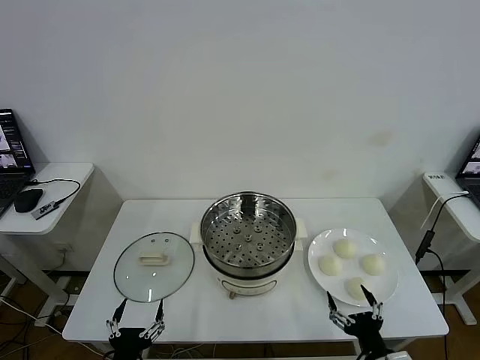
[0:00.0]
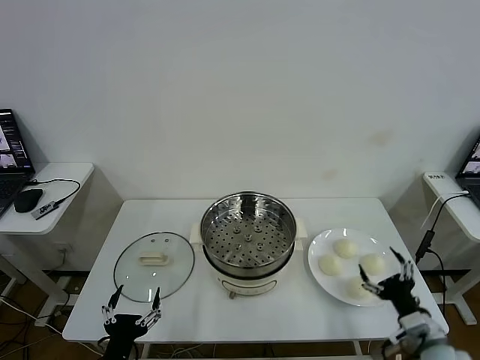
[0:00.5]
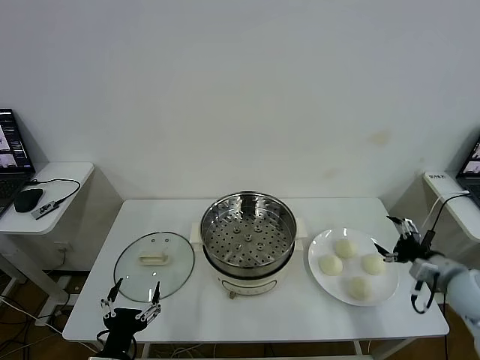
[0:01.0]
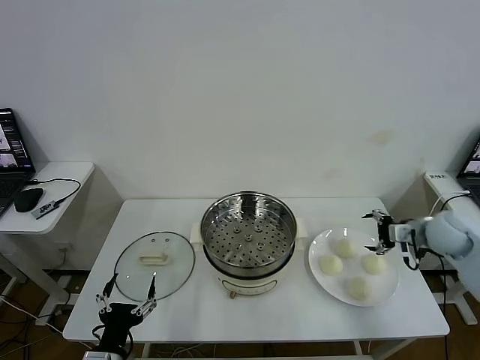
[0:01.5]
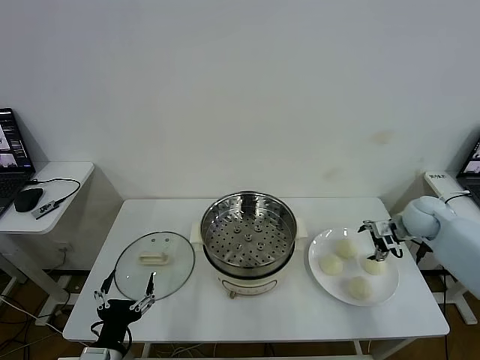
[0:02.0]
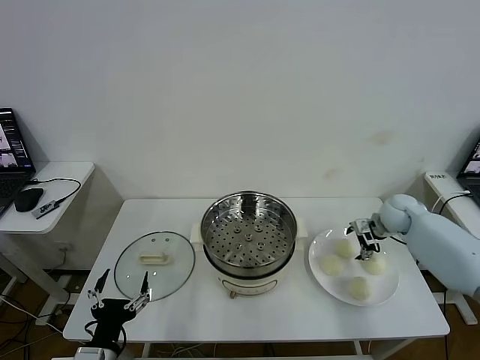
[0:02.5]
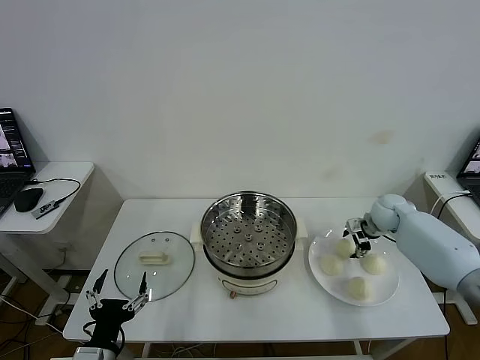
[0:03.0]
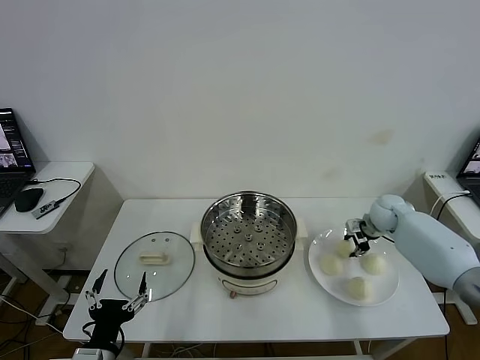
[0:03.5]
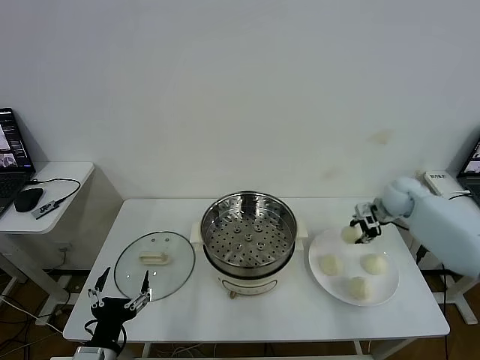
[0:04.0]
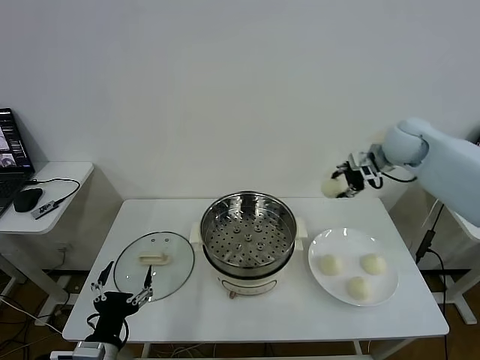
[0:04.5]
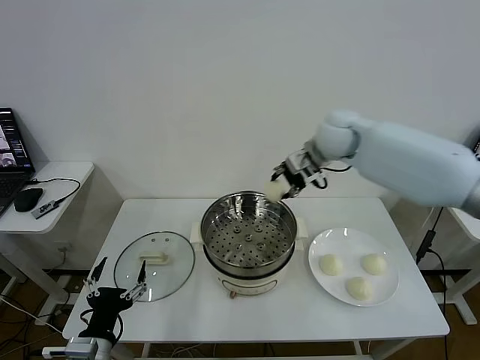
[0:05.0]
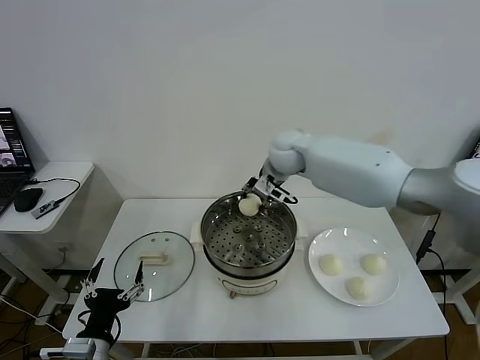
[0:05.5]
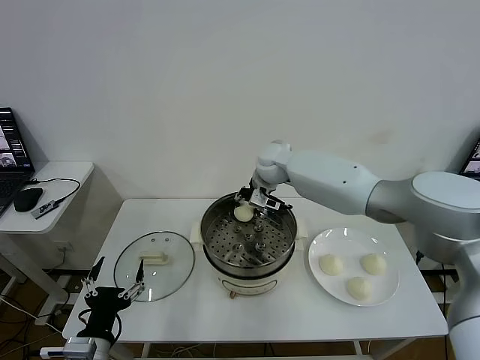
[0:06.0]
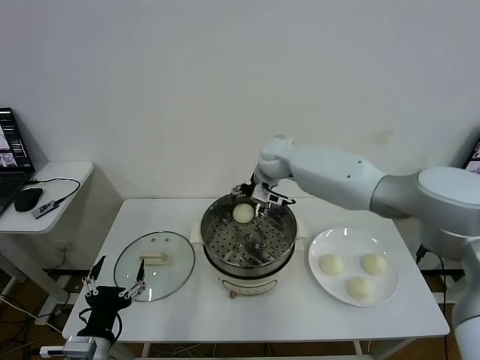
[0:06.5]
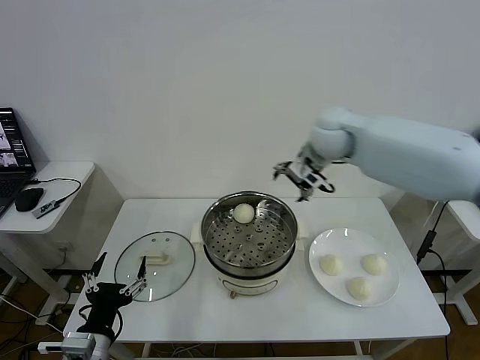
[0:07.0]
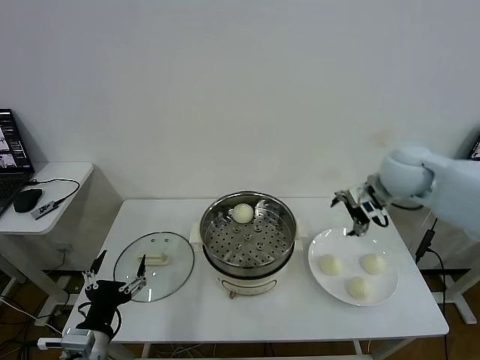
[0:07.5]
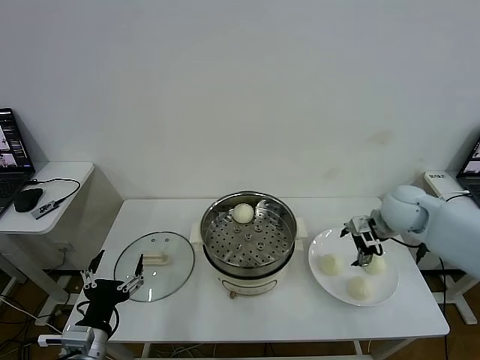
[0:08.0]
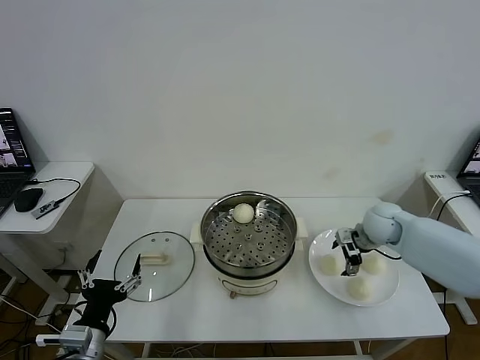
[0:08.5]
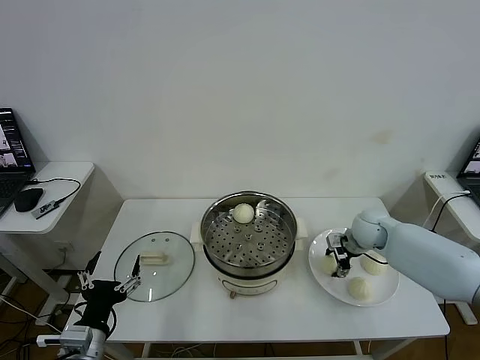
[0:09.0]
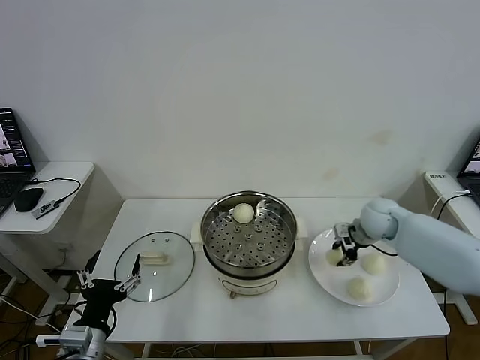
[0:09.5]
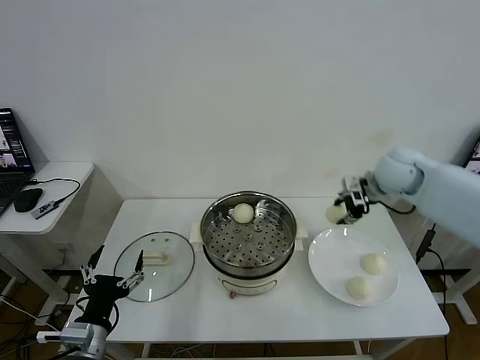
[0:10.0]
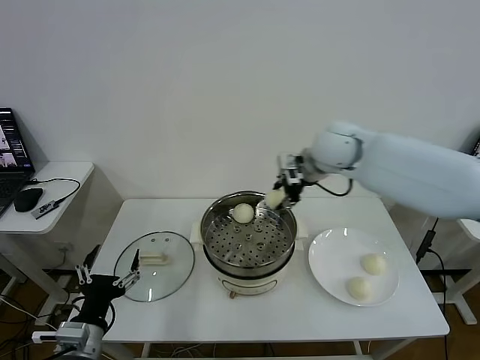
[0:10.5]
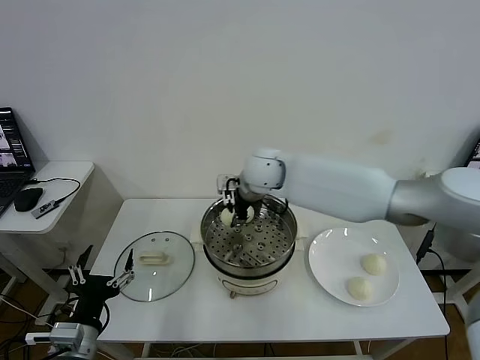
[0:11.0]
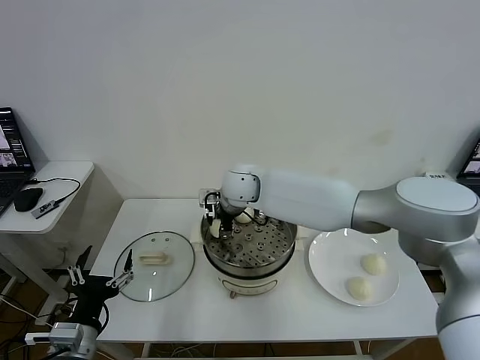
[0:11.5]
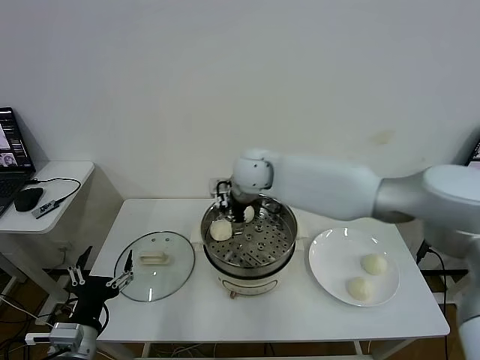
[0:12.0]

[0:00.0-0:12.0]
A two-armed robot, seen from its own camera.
Task of the whole recording: take steamed baozi put them in steamer then cover it.
Step, 0:00.0 to 0:03.0: Grasp the baozi in the plate with right gripper.
Step, 0:03.5 to 0:06.0: Place the baozi on the steamer with right gripper.
Step, 0:06.5 to 0:09.0: Grasp the baozi in the plate with right gripper.
Step, 0:09.5 to 0:11.5: Place the baozi on the steamer with right gripper.
0:02.0 to 0:04.0: The right gripper is displaced forward by approximately 5 cm, and closes.
0:04.0 to 0:06.0: The right gripper moves to the left, approximately 35 cm.
0:06.0 to 0:08.0: The right gripper moves to the right and backward, some 30 cm, and opens up.
0:08.0 to 0:10.0: The right gripper shifts some 10 cm upward, and closes its fingers.
0:10.0 to 0:12.0: The right gripper travels to the left by roughly 30 cm, and opens its fingers.

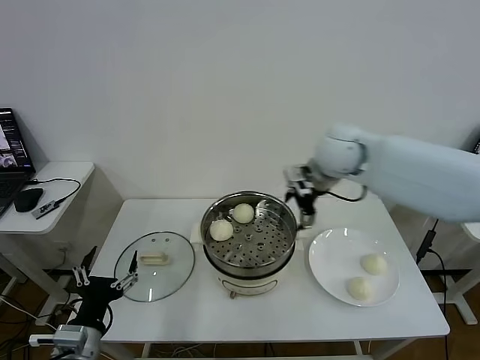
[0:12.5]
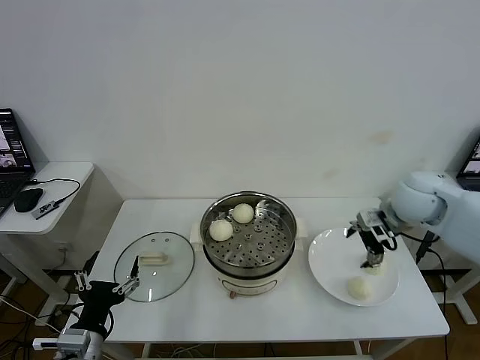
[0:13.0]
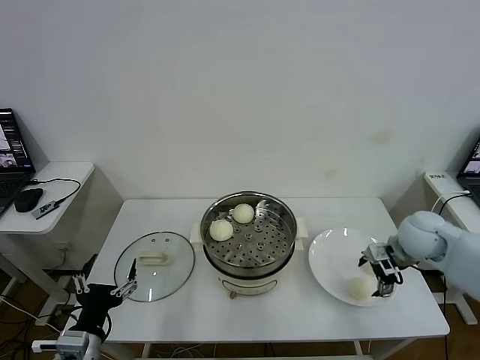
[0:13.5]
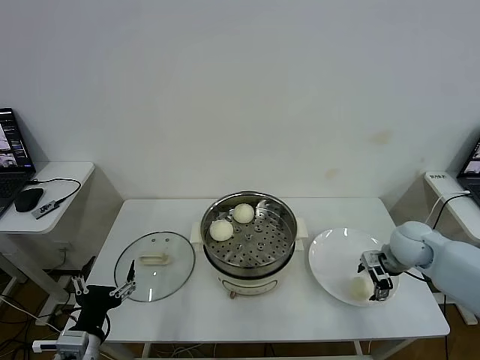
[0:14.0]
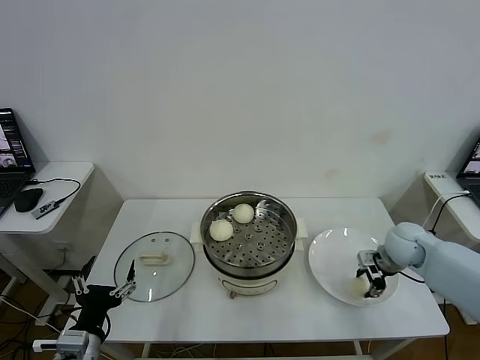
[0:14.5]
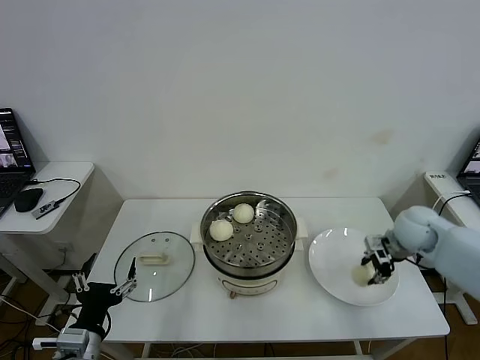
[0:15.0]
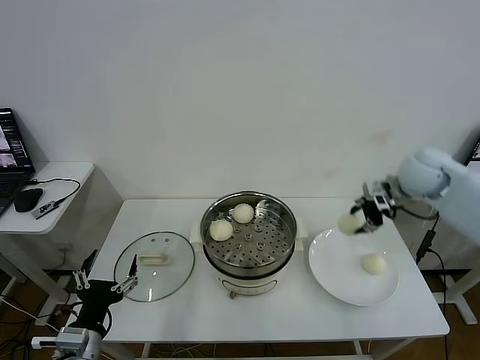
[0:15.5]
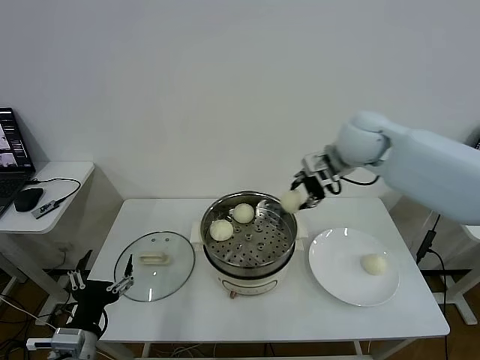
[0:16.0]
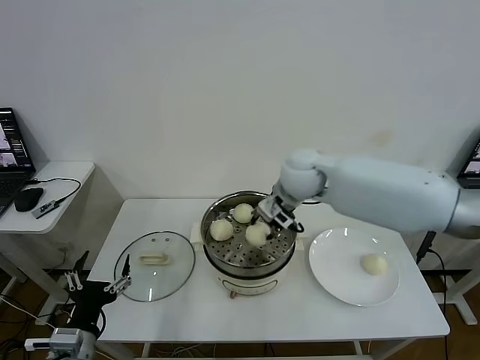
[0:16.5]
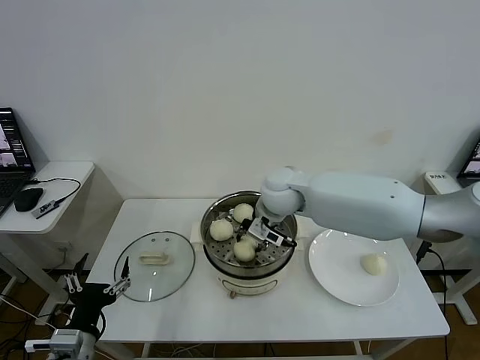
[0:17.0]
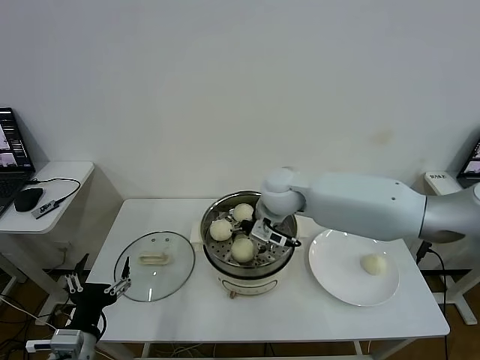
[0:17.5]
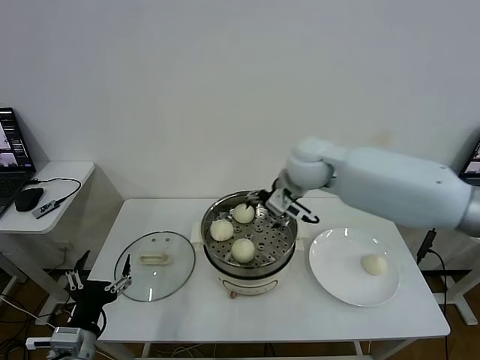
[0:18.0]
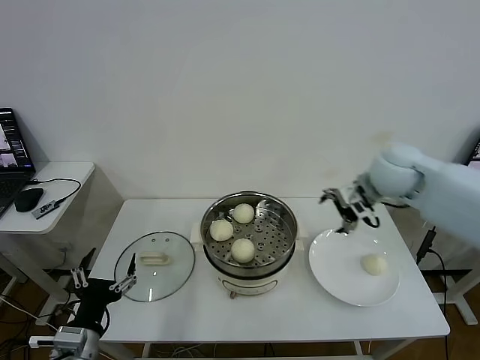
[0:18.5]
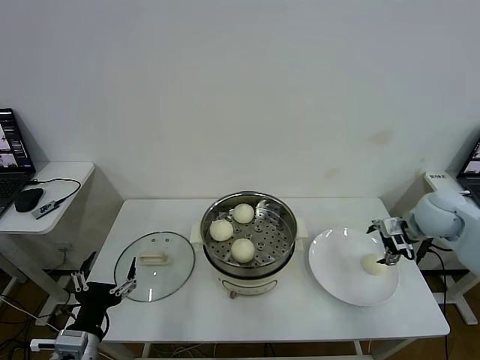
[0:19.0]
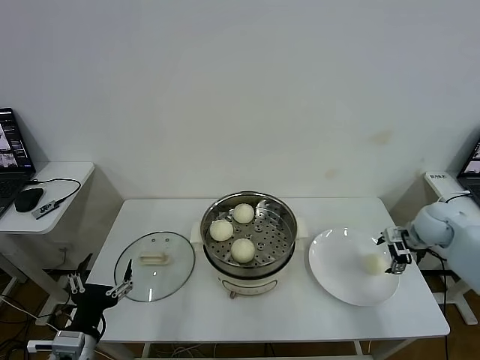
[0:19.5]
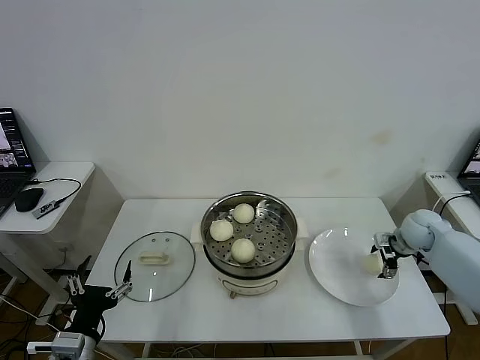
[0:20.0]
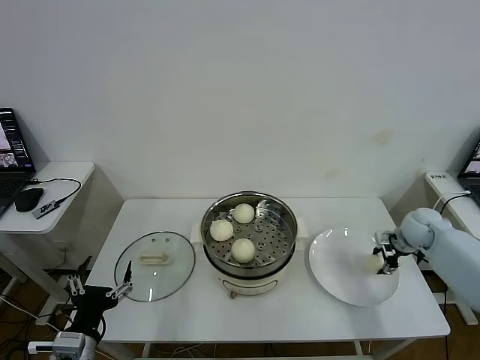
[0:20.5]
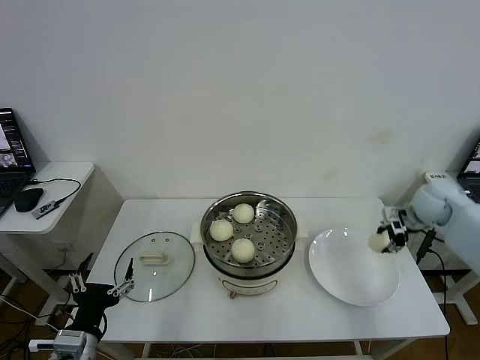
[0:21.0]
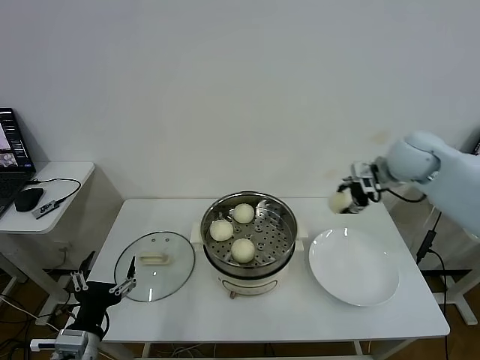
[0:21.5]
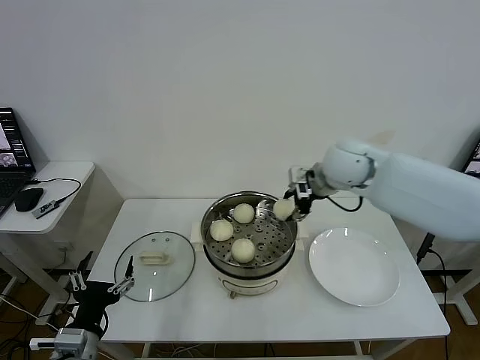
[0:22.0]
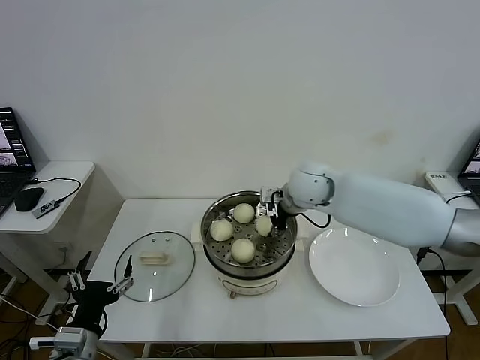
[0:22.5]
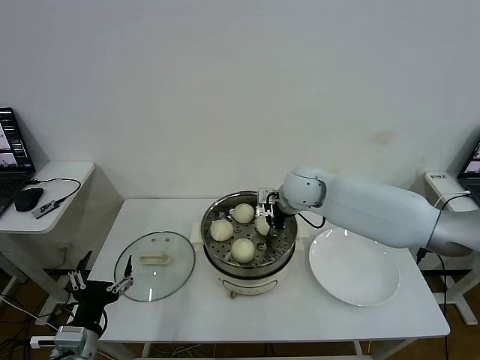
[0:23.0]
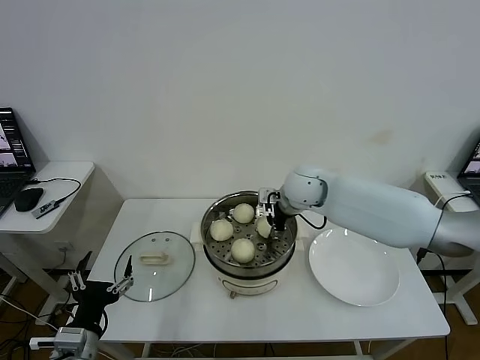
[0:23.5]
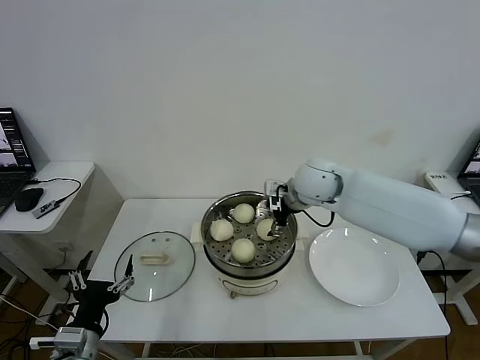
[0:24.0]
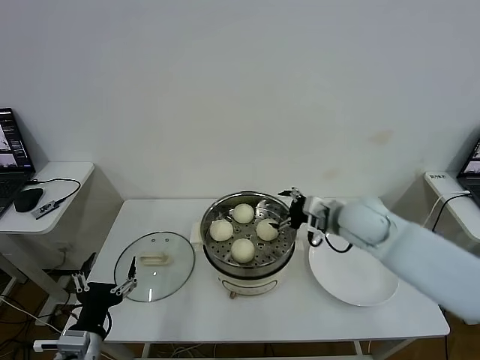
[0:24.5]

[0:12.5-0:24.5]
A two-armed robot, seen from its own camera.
Task of the whole recording: take steamed baozi put them in steamer then cover it.
Step, 0:12.5 to 0:14.5: Grasp the baozi in the plate with right gripper.
Step, 0:15.0 to 0:17.5: Place the baozi on the steamer with right gripper.
Step, 0:18.0 to 0:20.5: Grasp the baozi in the plate with right gripper.
Step, 0:21.0 to 0:23.5: Place the baozi on the steamer with right gripper.
0:12.5 to 0:14.5: The right gripper moves downward and to the right, some 30 cm, and closes its fingers.
0:14.5 to 0:16.5: The right gripper is displaced to the left and upward by about 30 cm.
0:16.5 to 0:18.5: The right gripper goes roughly 20 cm to the right, and opens its fingers.
0:18.5 to 0:20.5: The right gripper moves downward and to the right, about 25 cm, and closes its fingers.
0:20.5 to 0:22.5: The right gripper heads to the left and upward, covering roughly 35 cm.
0:22.5 to 0:24.5: The right gripper goes some 10 cm to the right and backward, and opens up.

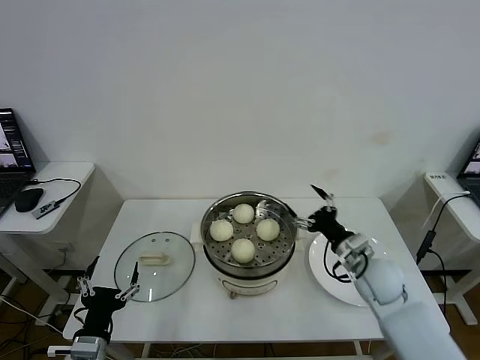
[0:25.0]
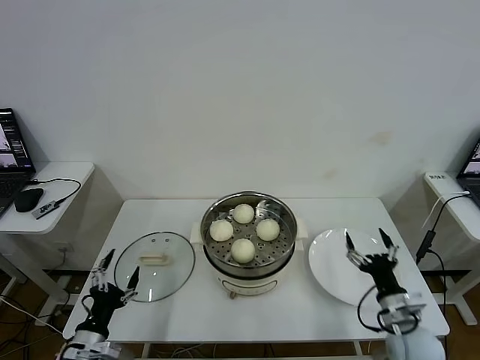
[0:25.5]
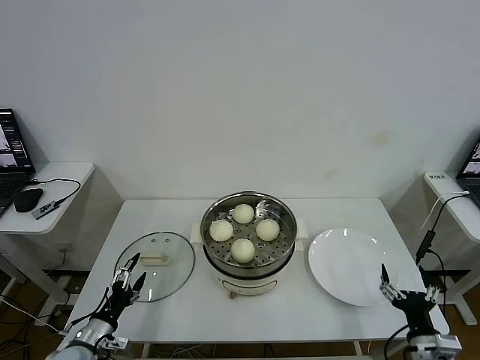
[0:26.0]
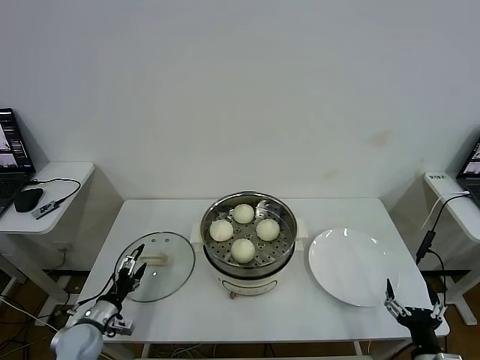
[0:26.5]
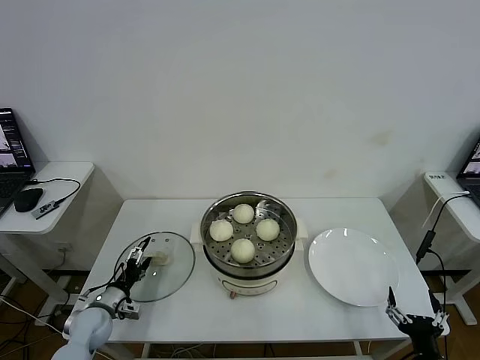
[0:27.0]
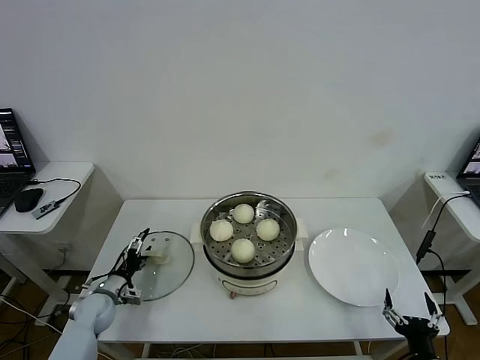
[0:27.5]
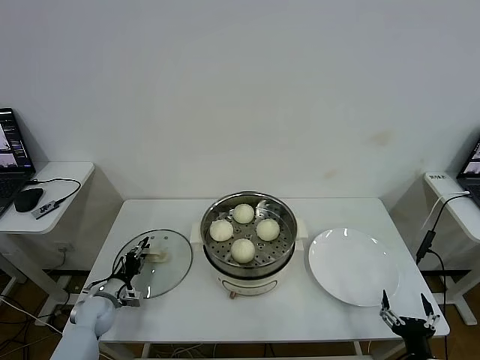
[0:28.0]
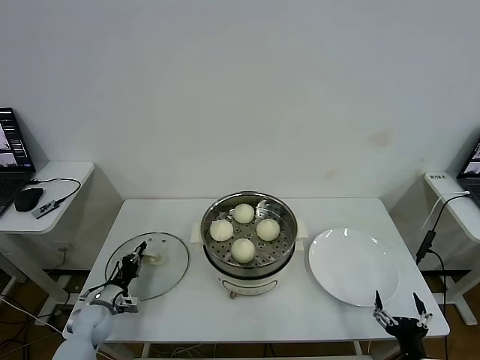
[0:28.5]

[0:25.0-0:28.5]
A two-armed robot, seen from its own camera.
Task of the whole recording: take steamed baozi put them in steamer then cover it.
Step, 0:25.0 to 0:28.0: Grasp the pot lid with left gripper.
0:25.0 to 0:27.0: The left gripper moves forward, downward and to the left, some 20 cm. Meanwhile the right gripper goes roughly 25 cm backward.
0:27.0 to 0:28.5: The left gripper closes its fingers.
